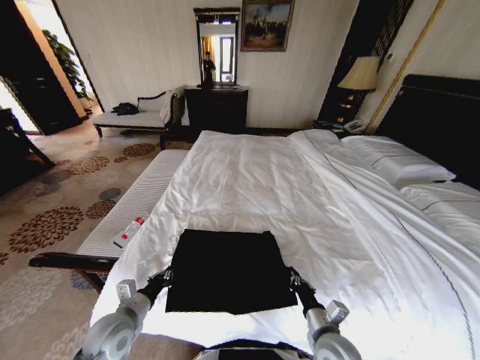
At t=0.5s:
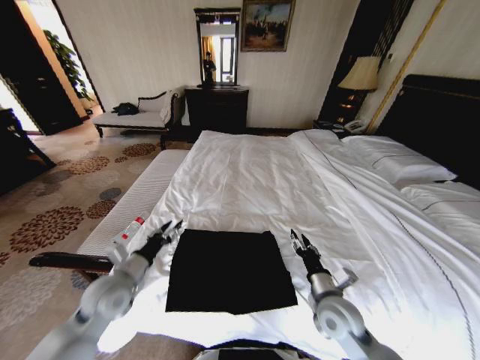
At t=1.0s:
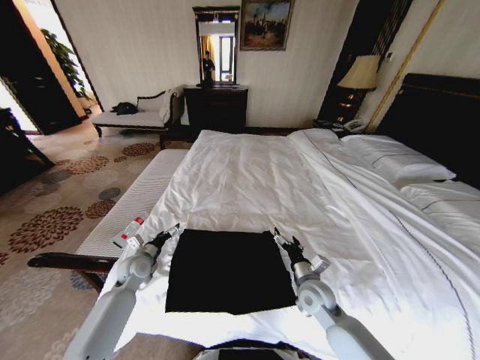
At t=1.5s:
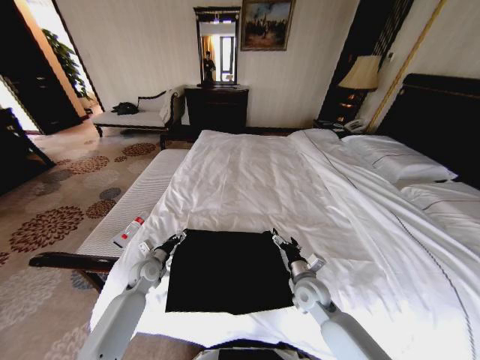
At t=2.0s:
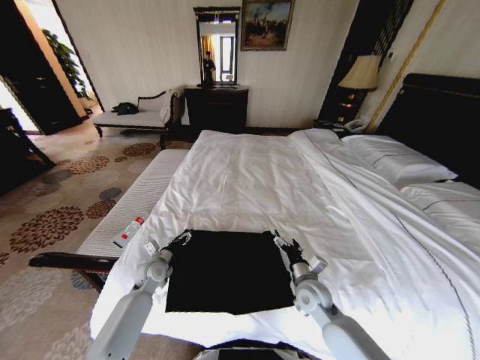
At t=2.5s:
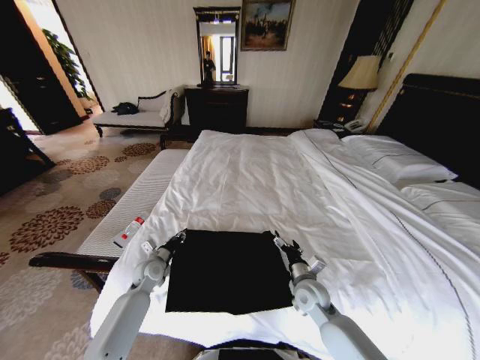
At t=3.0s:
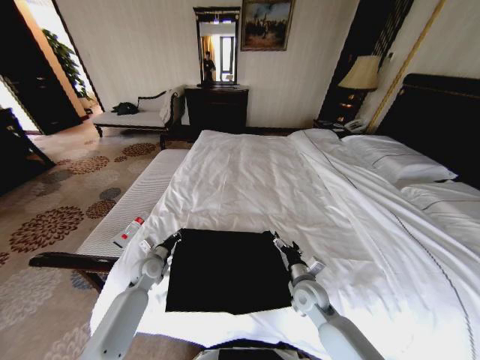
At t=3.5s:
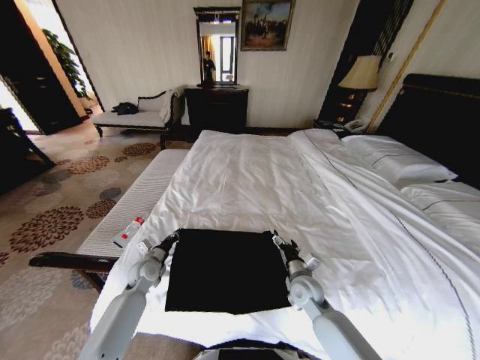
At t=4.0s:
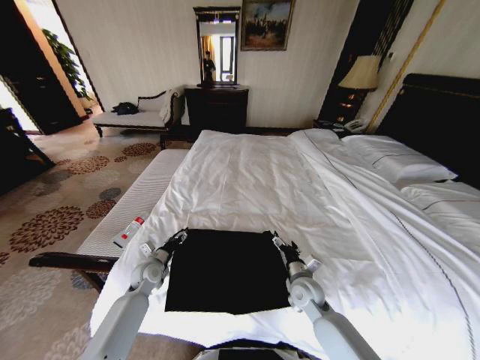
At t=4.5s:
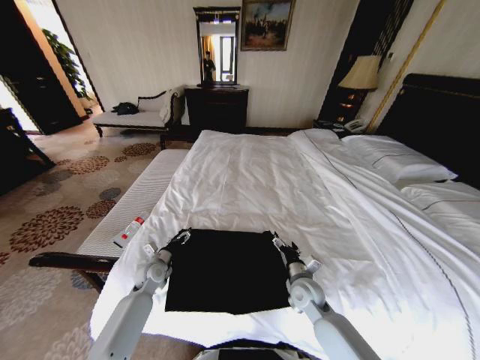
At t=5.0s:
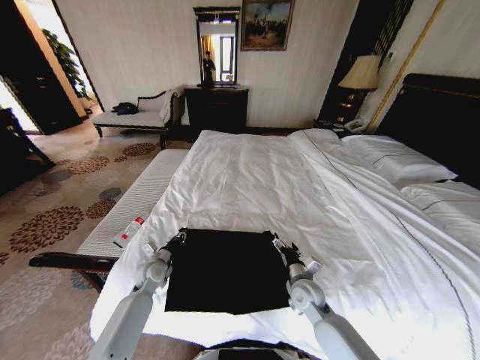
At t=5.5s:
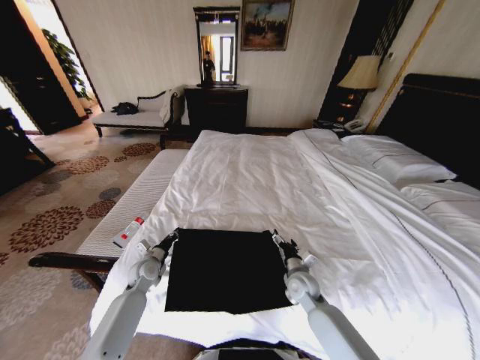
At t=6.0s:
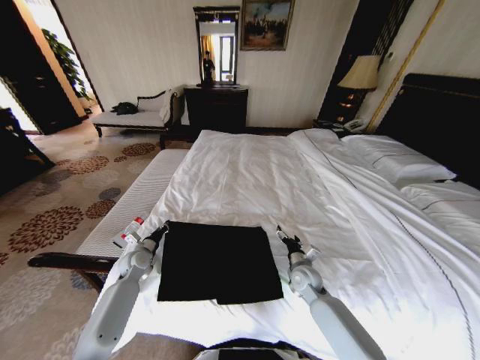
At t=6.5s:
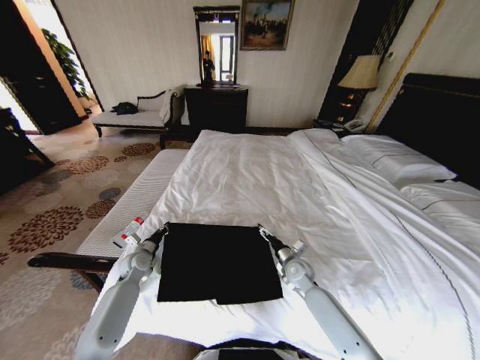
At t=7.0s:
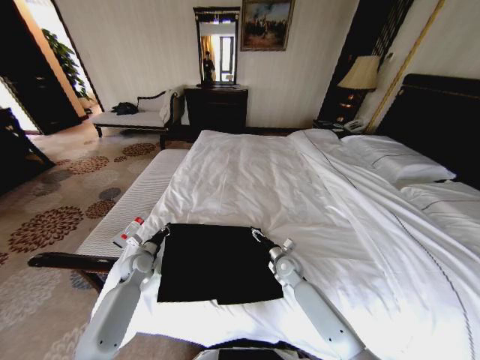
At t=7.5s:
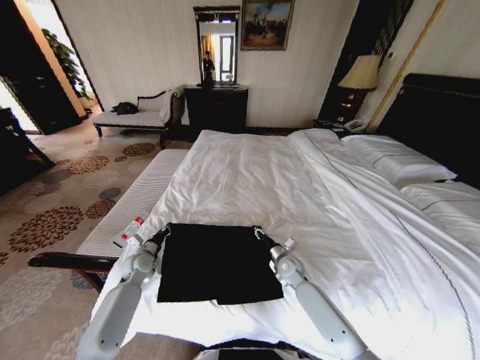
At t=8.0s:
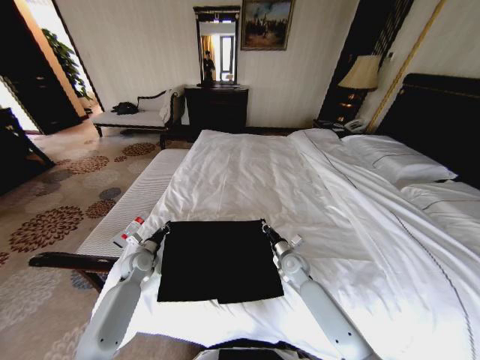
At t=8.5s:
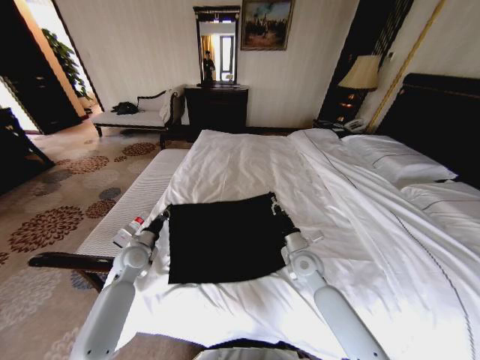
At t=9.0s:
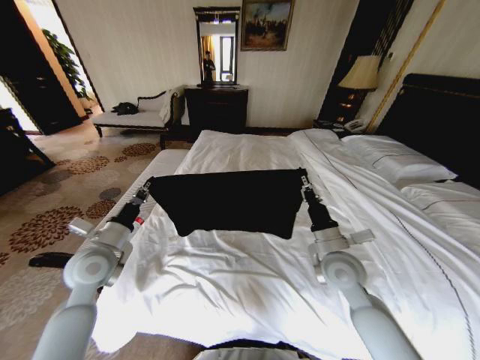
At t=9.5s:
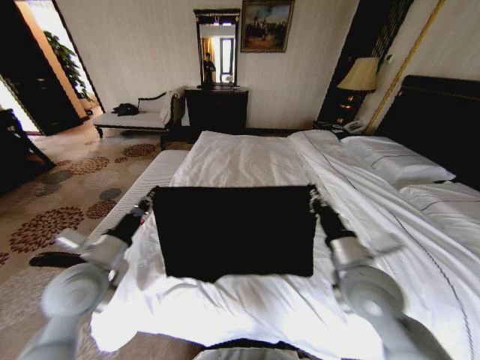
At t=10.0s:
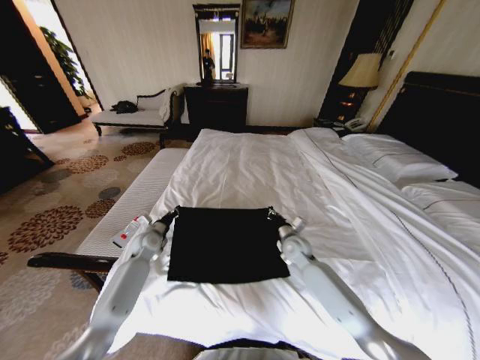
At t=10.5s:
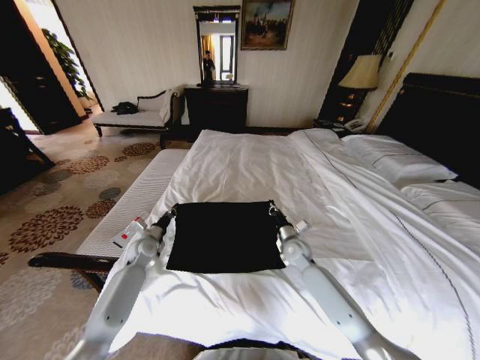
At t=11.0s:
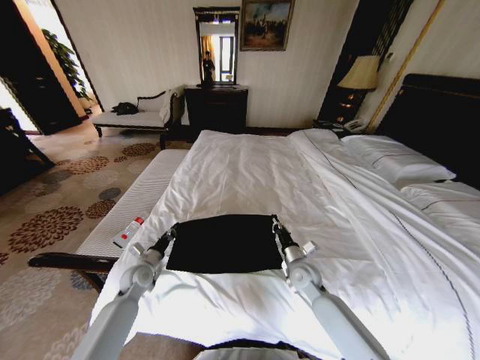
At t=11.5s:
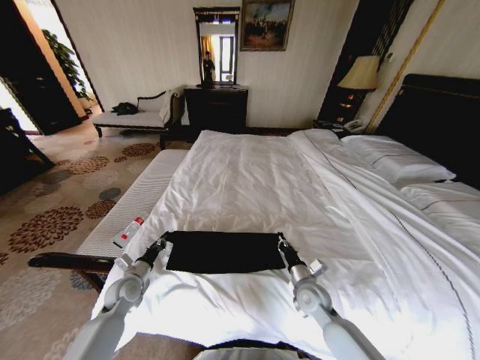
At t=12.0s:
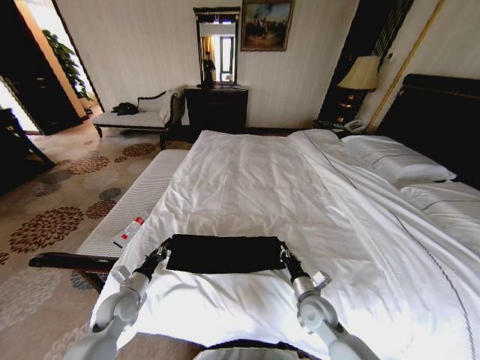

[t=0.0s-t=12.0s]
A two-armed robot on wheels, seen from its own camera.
Task of the whole recording: Fold the clothes on the bed.
t=0.0s to t=2.0s: The right gripper shifts approximately 15 cm forward, and opens its fingers. The left gripper heads forward and downward, covering approximately 20 cm, and opens its fingers.
t=2.0s to t=4.0s: The left gripper closes, then opens again.
t=4.0s to t=6.0s: The left gripper shifts by some 5 cm, and closes. The right gripper moves approximately 5 cm.
t=6.0s to t=8.0s: The right gripper closes.
t=8.0s to t=10.0s: The left gripper reaches some 15 cm backward, then returns. Meanwhile the right gripper heads forward, covering roughly 5 cm, and reaches approximately 25 cm upward, then returns.
t=10.0s to t=12.0s: Both grippers travel together backward, approximately 20 cm.

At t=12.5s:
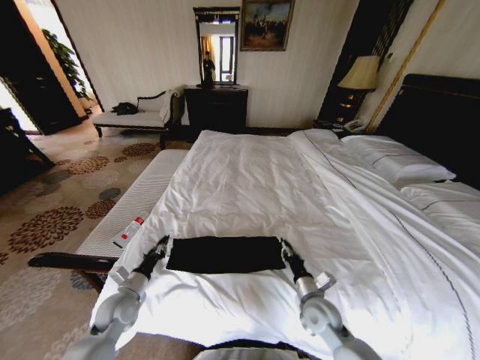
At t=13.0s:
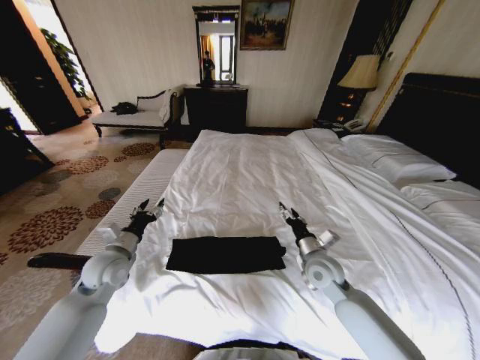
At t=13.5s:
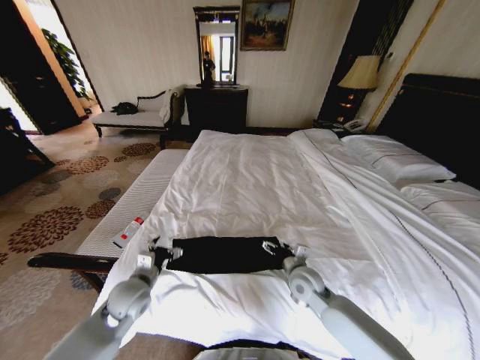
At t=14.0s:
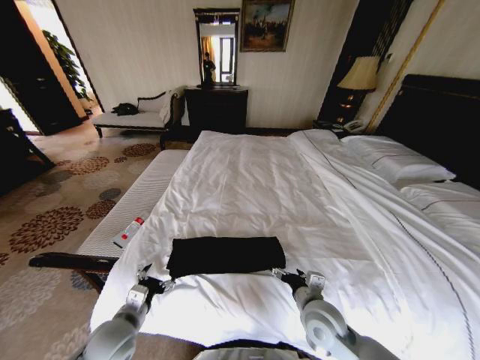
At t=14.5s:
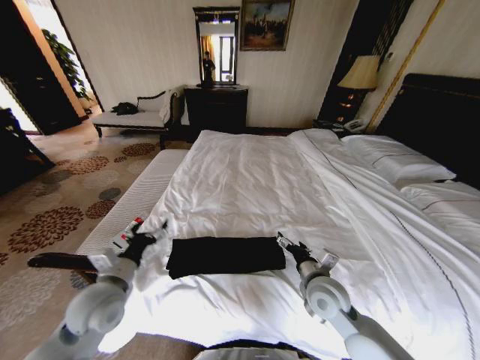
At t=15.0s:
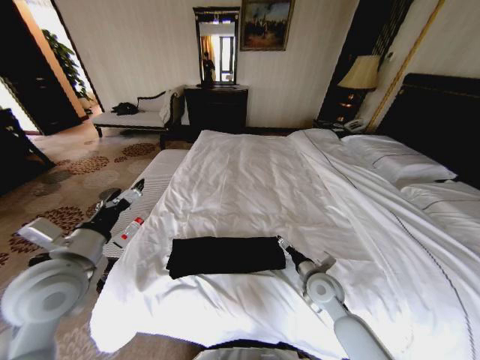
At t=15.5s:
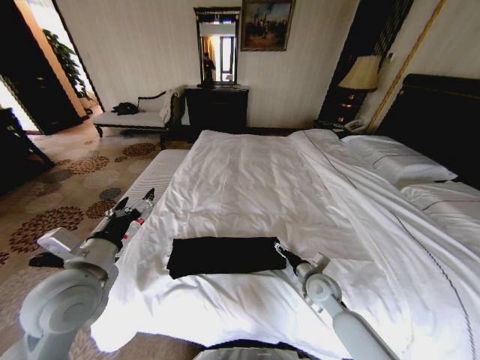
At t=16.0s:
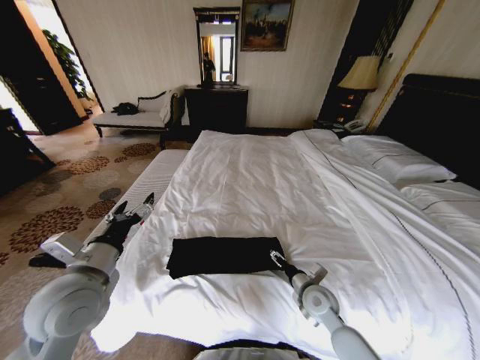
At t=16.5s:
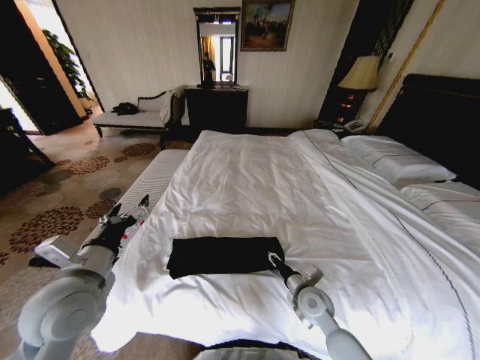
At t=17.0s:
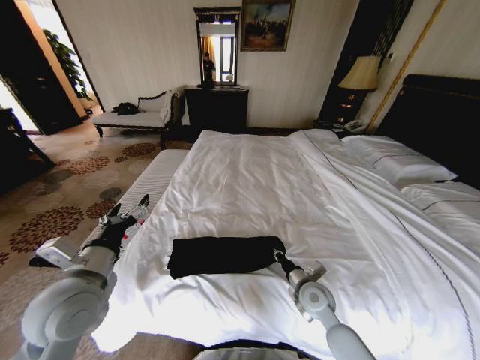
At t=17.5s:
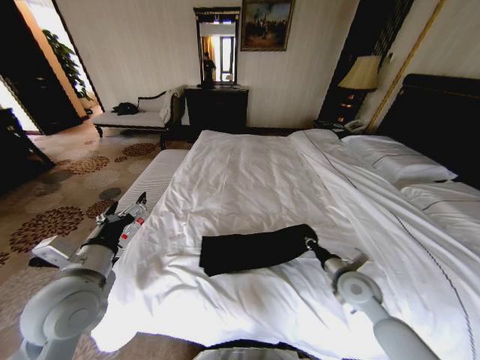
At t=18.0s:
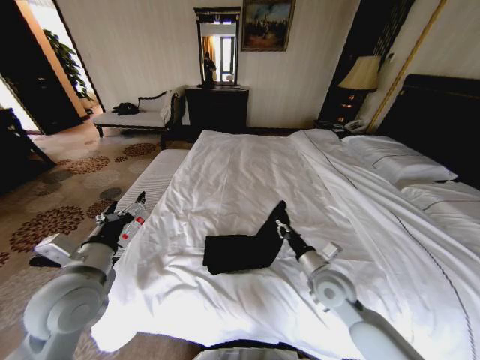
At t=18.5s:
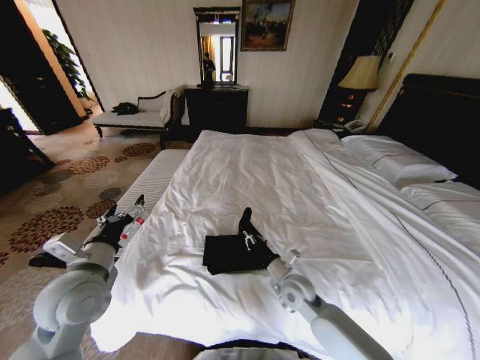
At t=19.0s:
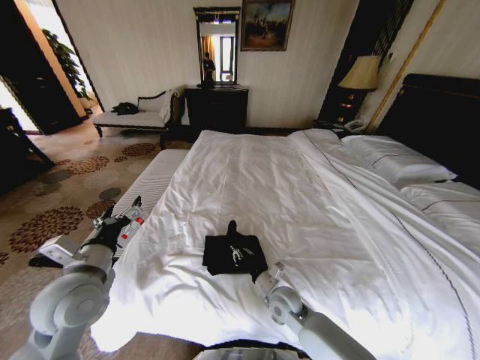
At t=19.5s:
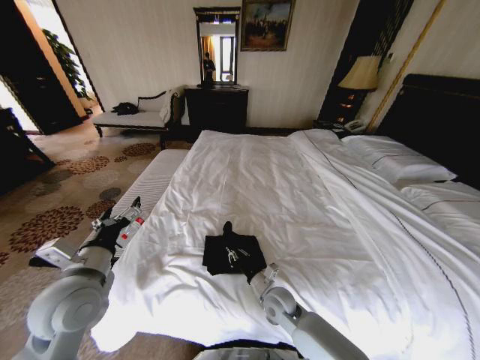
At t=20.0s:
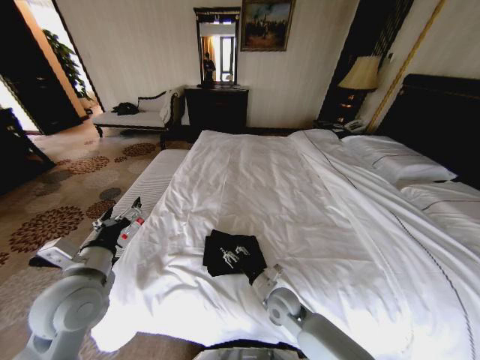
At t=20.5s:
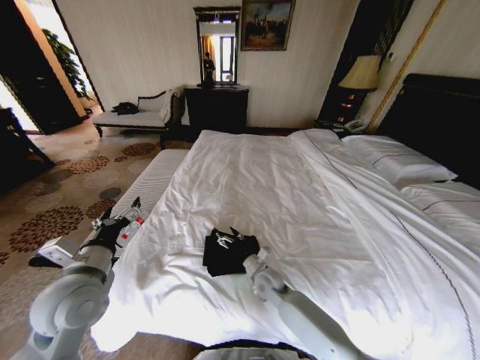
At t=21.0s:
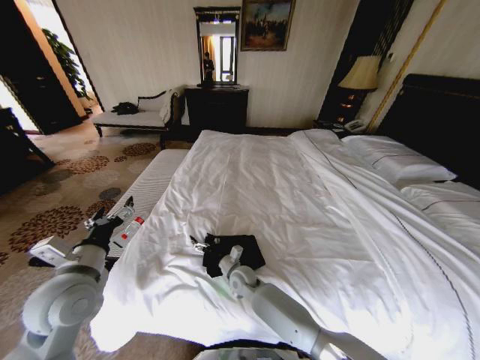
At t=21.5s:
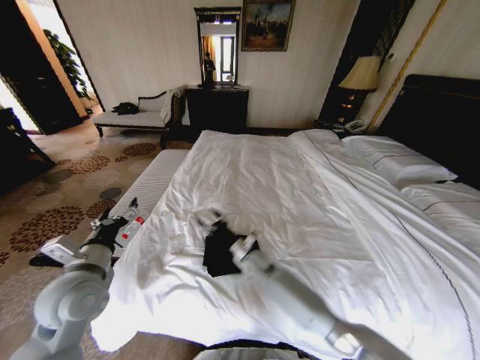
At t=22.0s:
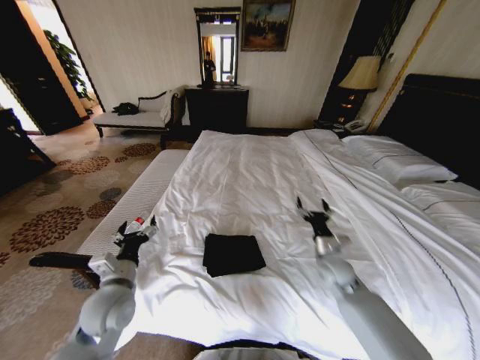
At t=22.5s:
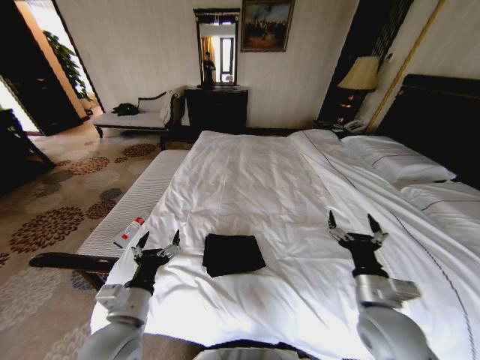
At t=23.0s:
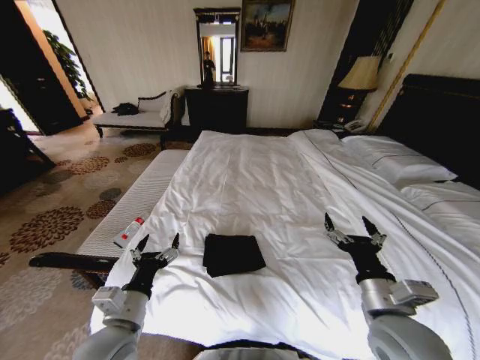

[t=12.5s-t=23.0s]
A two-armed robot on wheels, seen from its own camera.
Task of the whole recording: Fold the clothes on the bed.
t=12.5s to t=14.5s: The right gripper goes forward and backward, some 10 cm each way, reversing 2 times, and opens its fingers; the left gripper moves up and down over roughly 15 cm, changing direction 2 times, and opens its fingers.
t=14.5s to t=16.5s: The right gripper is displaced downward by some 10 cm, and closes; the left gripper heads upward, covering roughly 10 cm.
t=16.5s to t=19.0s: The right gripper heads to the left, covering approximately 5 cm, and closes.
t=19.0s to t=21.0s: The right gripper is displaced to the left and forward by approximately 15 cm, and opens its fingers.
t=21.0s to t=23.0s: The left gripper is displaced to the right, backward and downward by roughly 15 cm. Meanwhile the right gripper goes approximately 40 cm to the right, upward and backward.
